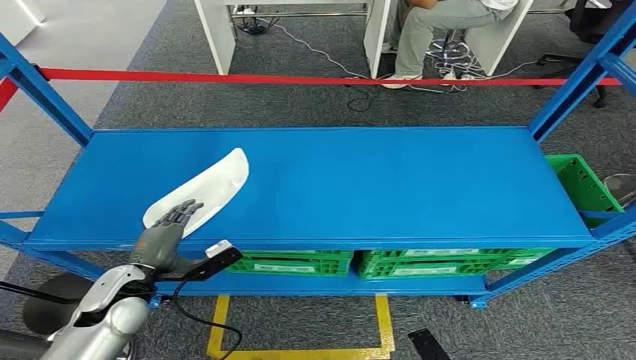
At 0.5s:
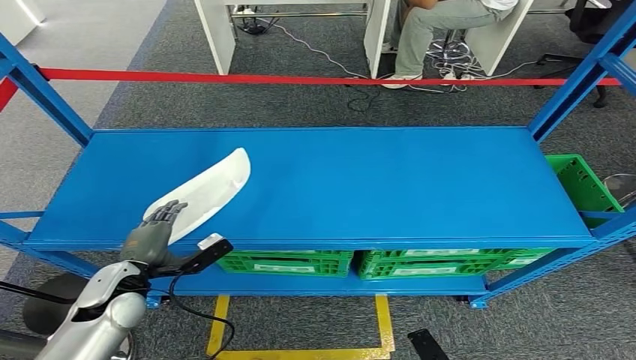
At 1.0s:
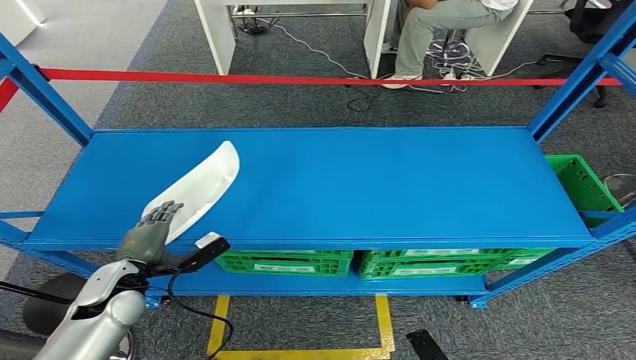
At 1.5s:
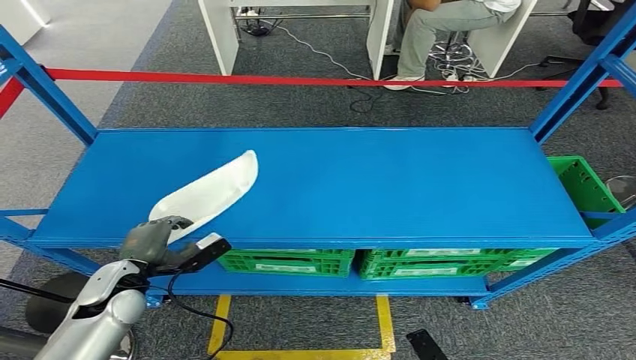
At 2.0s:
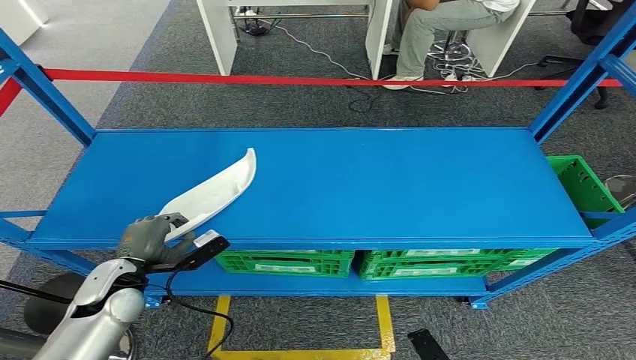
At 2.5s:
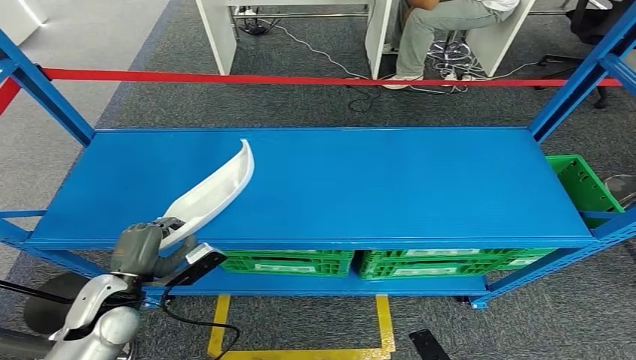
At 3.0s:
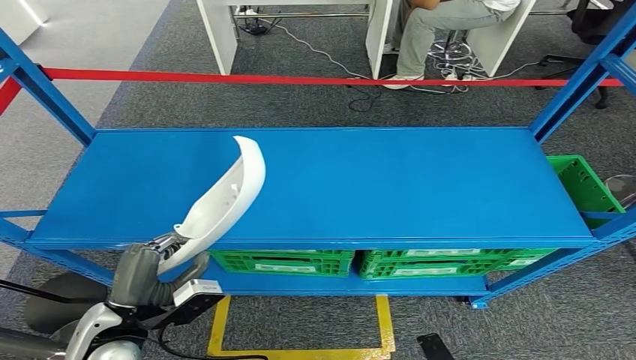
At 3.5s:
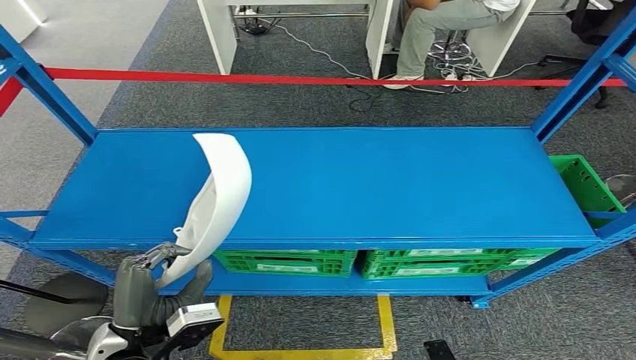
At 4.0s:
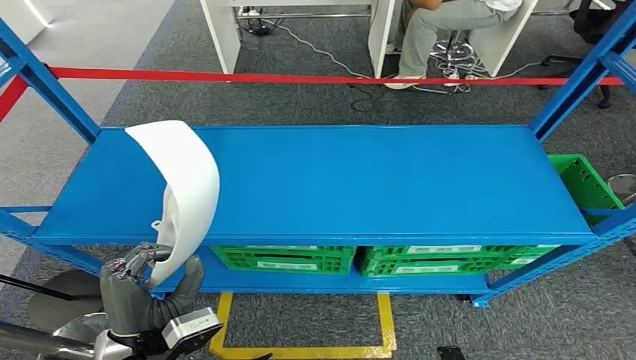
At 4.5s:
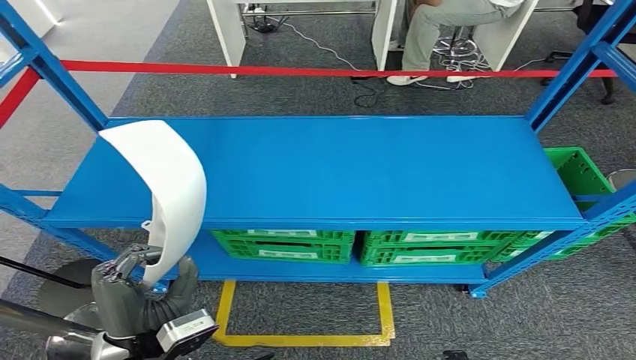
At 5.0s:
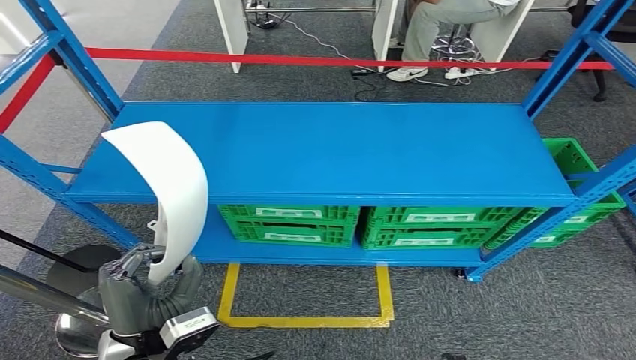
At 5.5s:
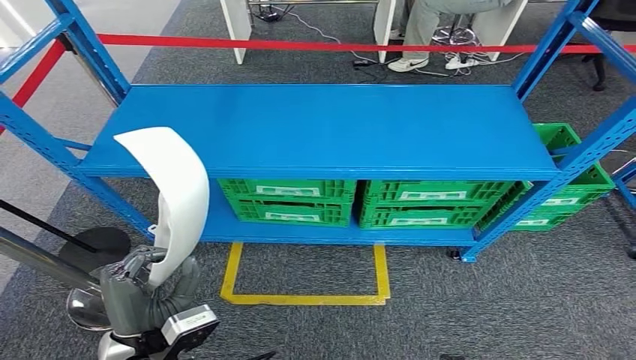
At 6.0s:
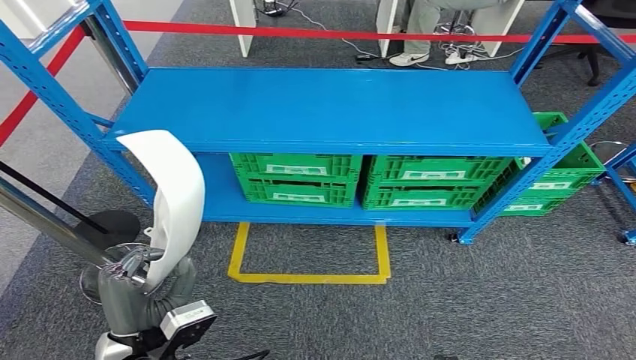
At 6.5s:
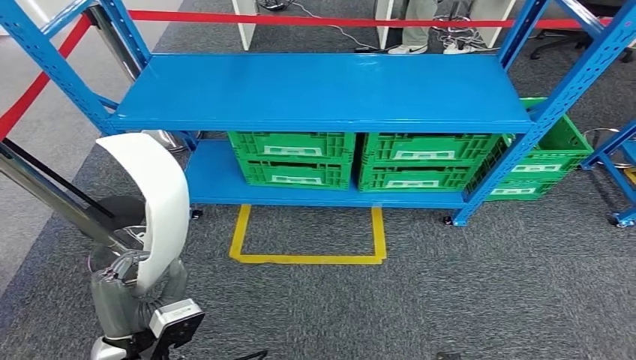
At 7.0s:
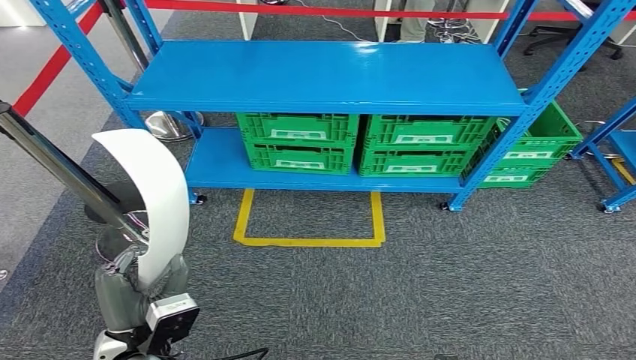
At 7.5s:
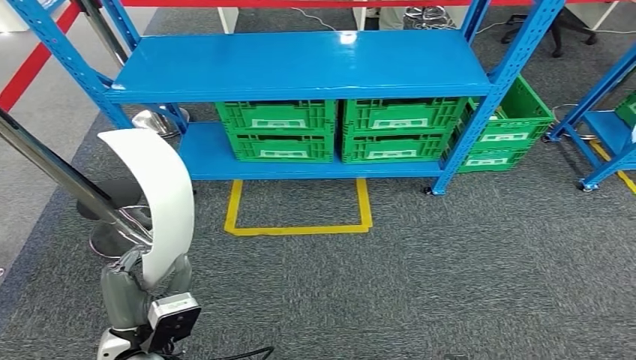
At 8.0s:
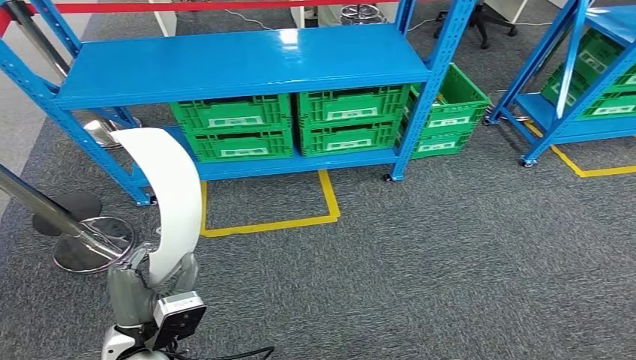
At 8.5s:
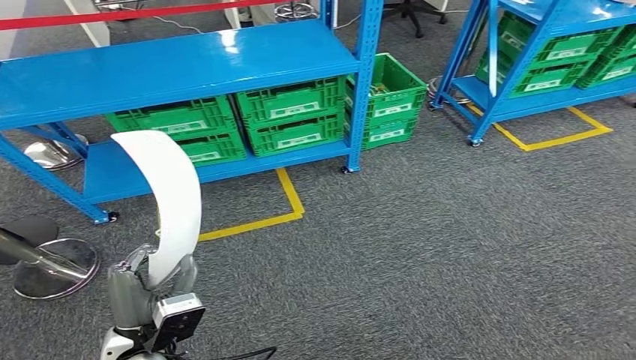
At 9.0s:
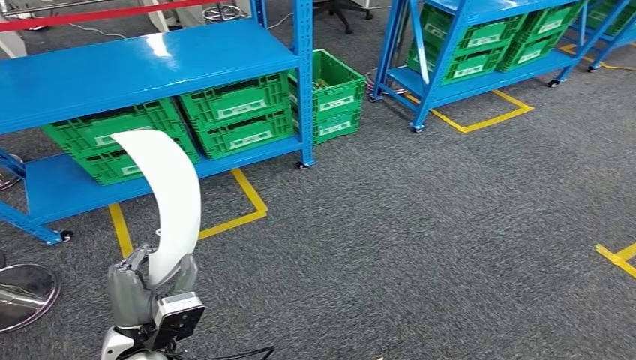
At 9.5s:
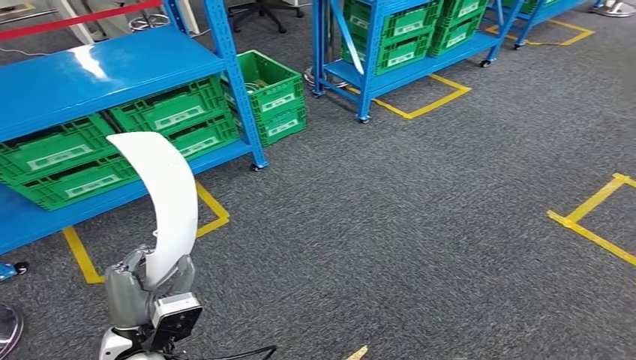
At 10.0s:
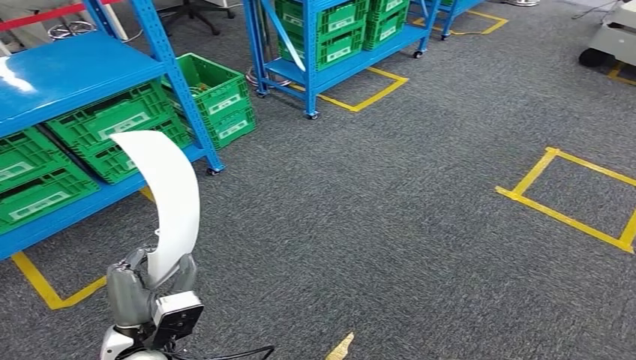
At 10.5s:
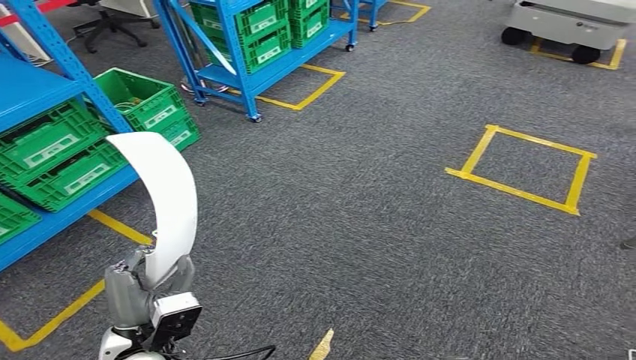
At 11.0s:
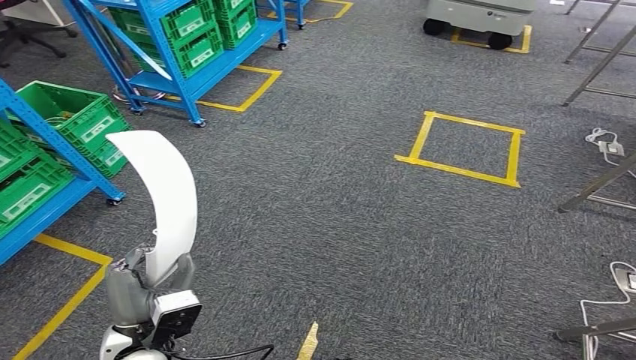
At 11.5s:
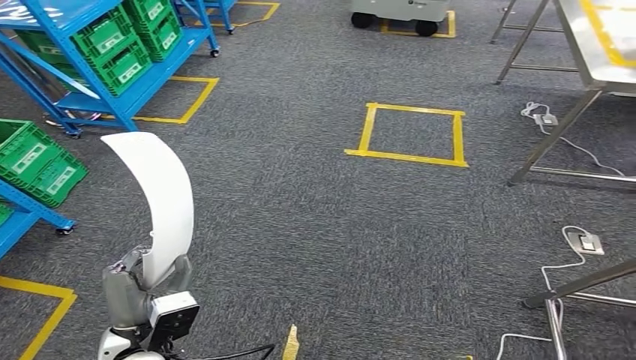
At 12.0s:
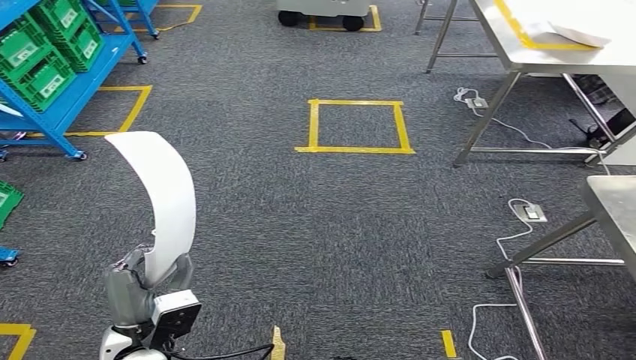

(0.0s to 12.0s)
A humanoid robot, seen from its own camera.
Step, 0.0s - 5.5s: Pick up the small component from the shelf.

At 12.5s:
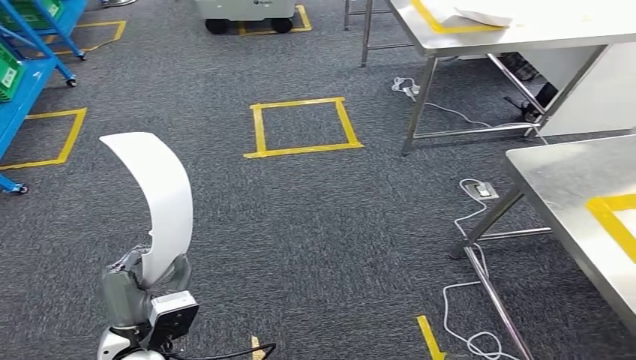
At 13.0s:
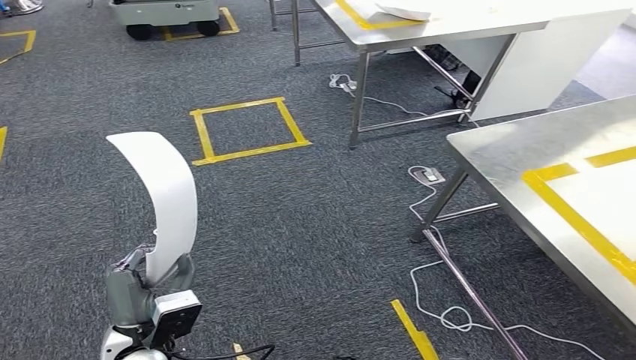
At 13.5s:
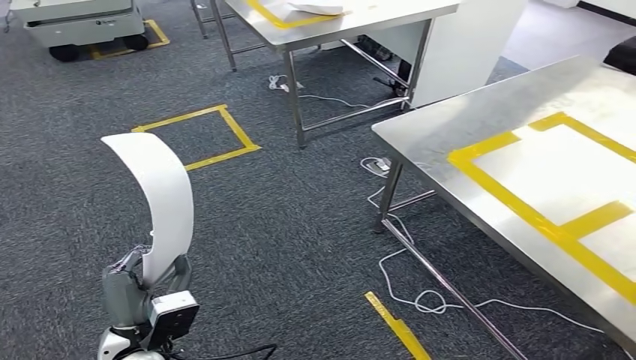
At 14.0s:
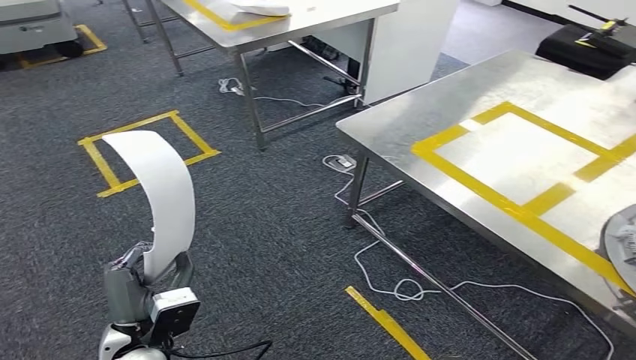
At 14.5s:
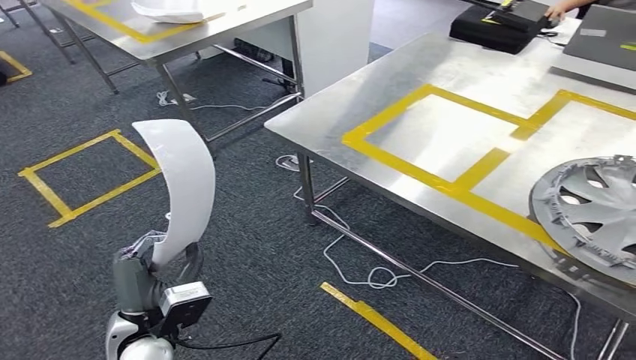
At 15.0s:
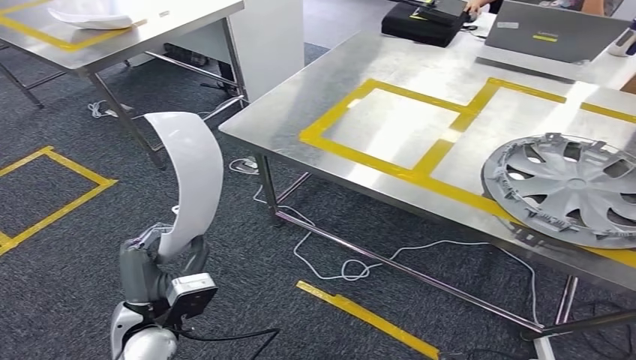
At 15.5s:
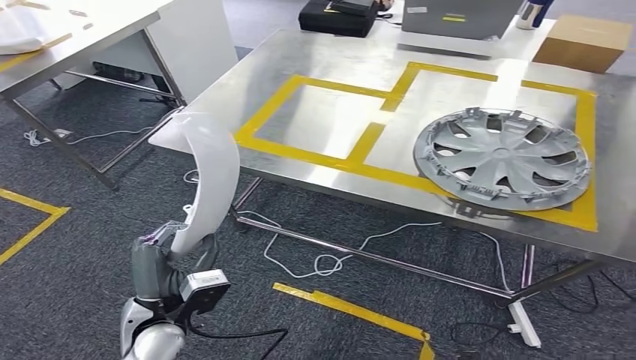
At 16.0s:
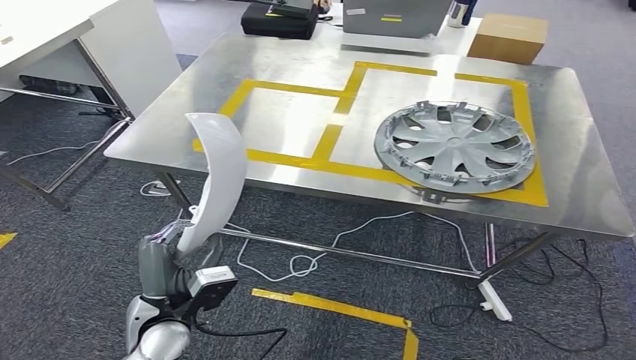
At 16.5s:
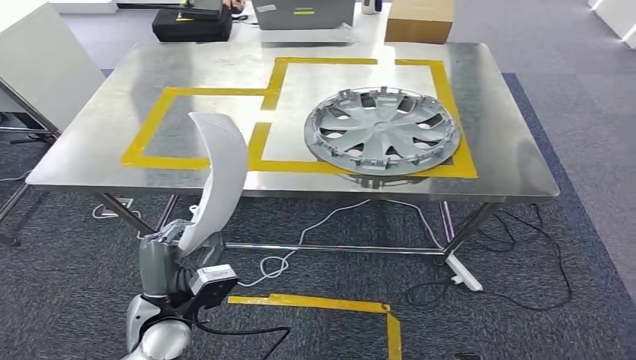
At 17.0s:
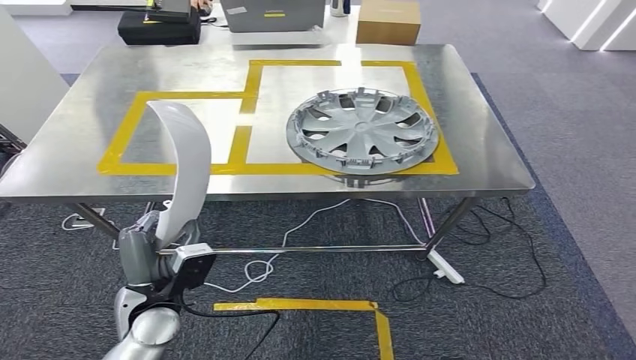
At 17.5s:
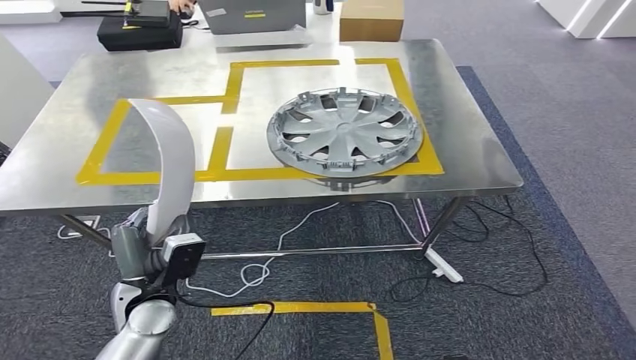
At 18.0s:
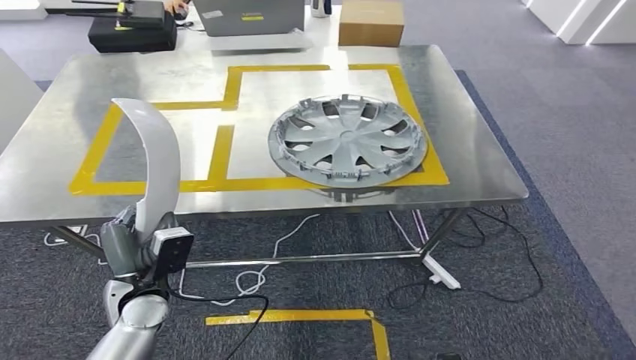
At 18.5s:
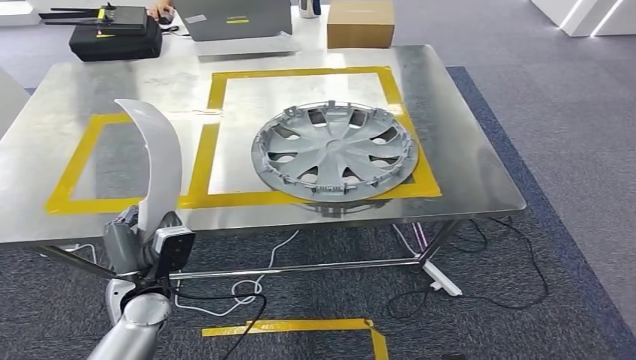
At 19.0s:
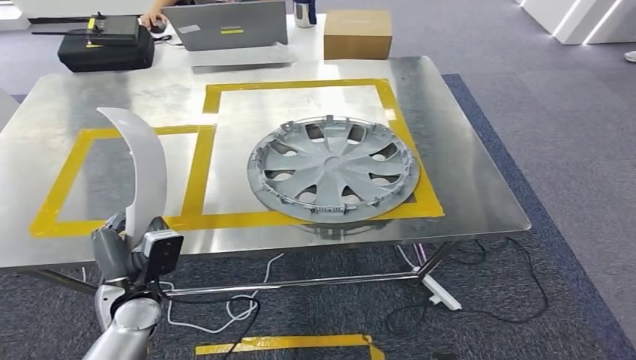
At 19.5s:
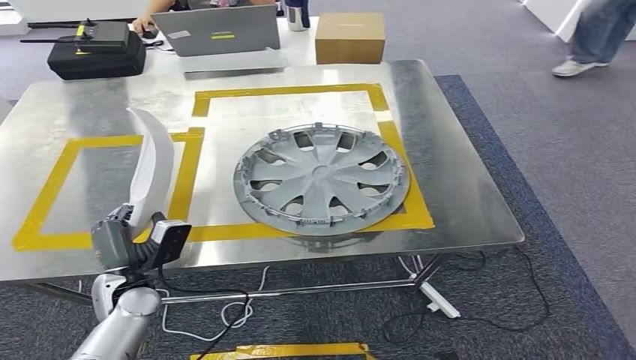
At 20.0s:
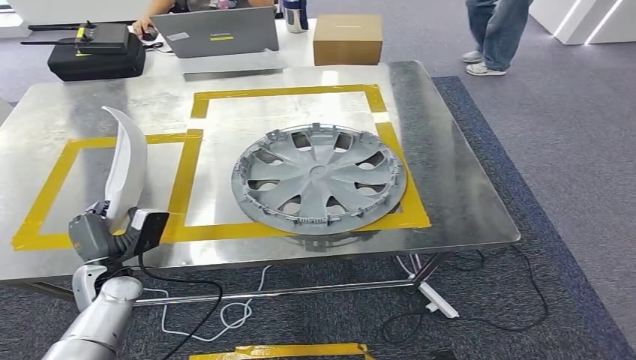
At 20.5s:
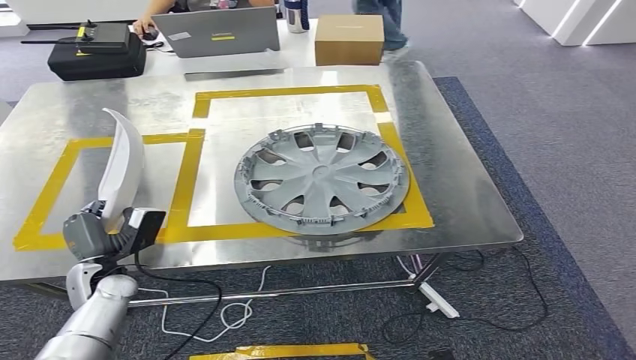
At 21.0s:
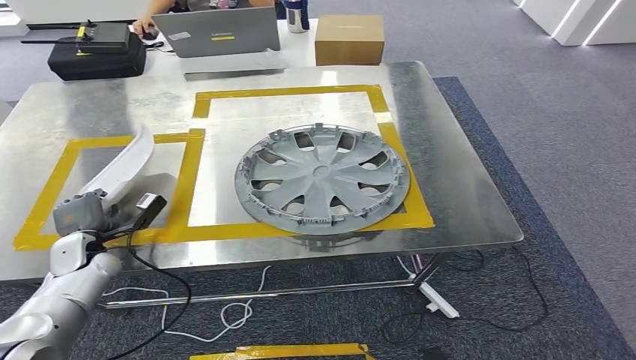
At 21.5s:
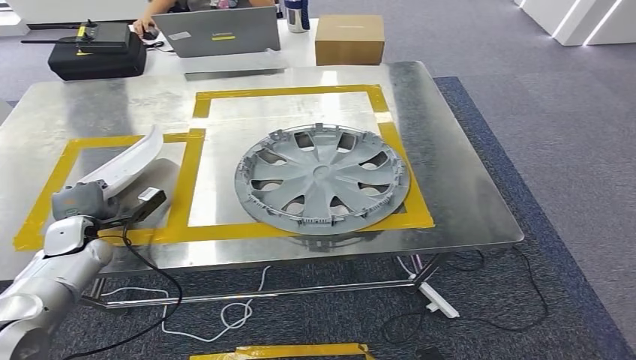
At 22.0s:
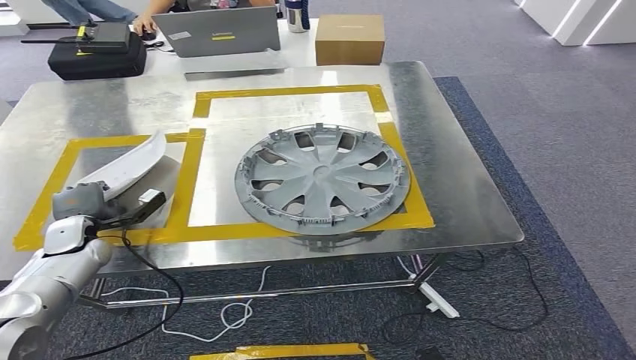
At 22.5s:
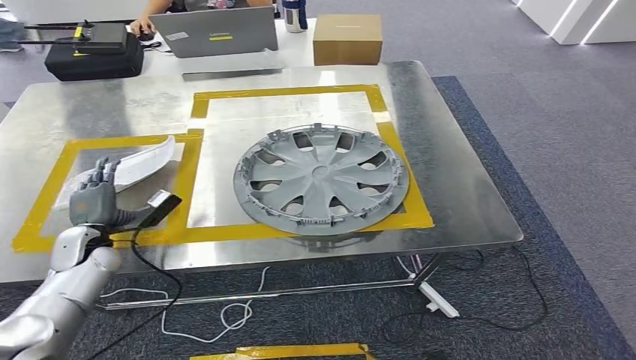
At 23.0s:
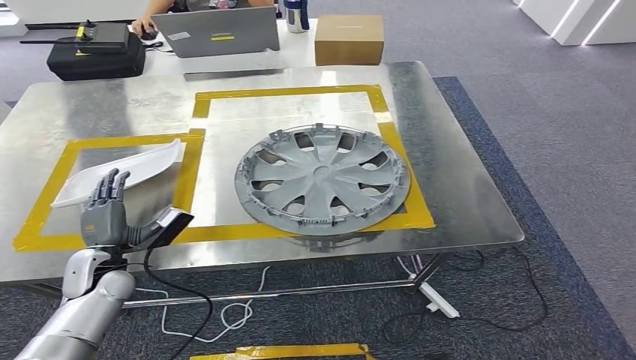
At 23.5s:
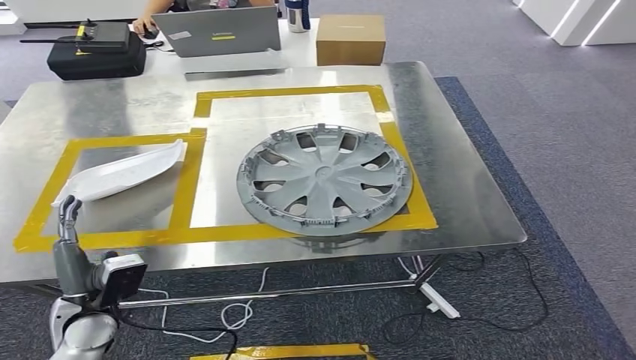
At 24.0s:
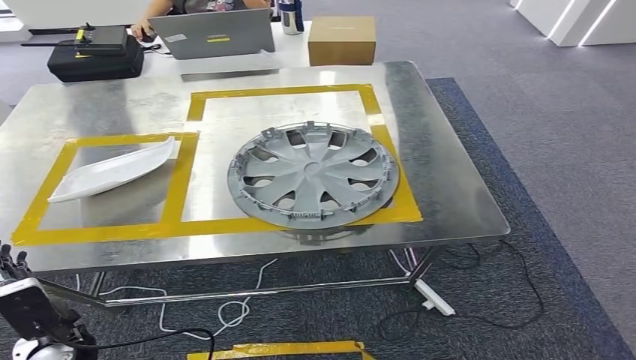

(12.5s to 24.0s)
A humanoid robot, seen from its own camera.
Step, 12.5s - 17.0s: Move the small component to the workbench.
20.0s - 22.0s: The left hand moves forward and to the left, roughly 10 cm.
